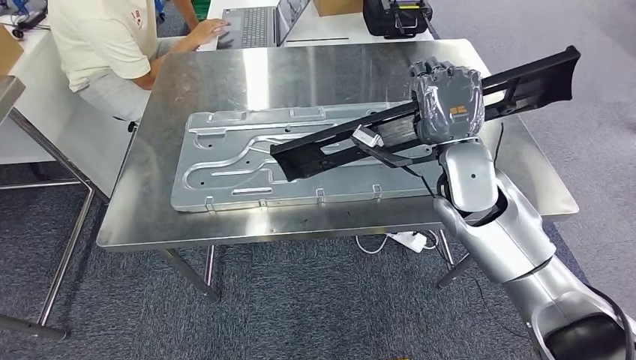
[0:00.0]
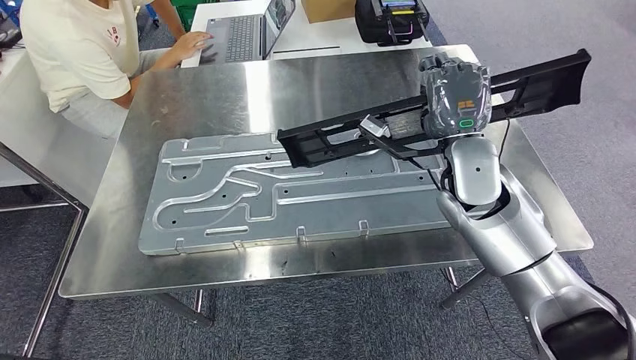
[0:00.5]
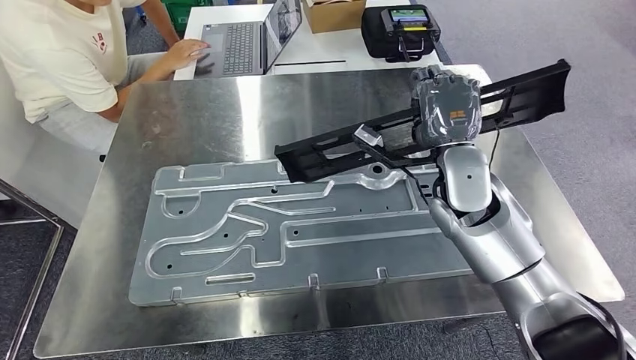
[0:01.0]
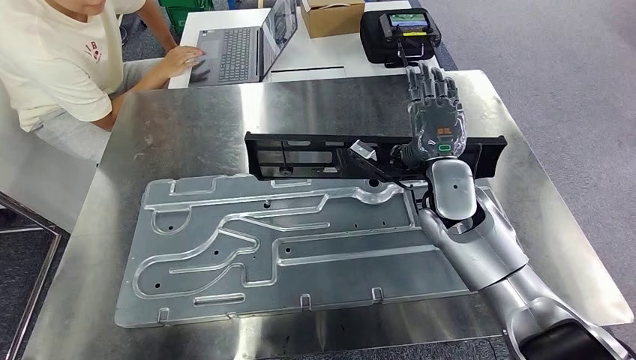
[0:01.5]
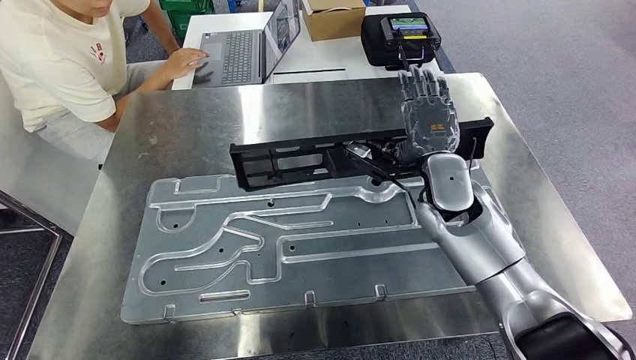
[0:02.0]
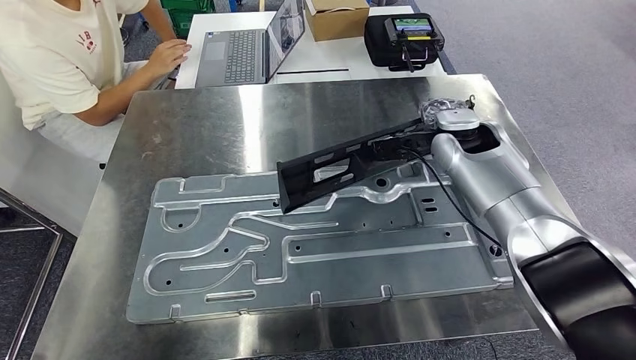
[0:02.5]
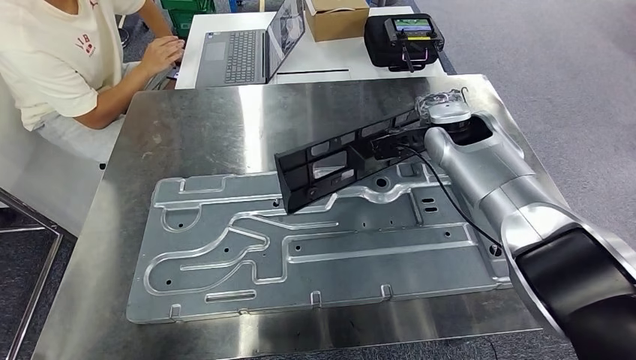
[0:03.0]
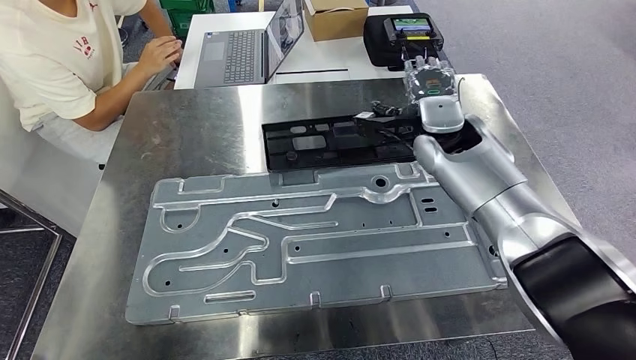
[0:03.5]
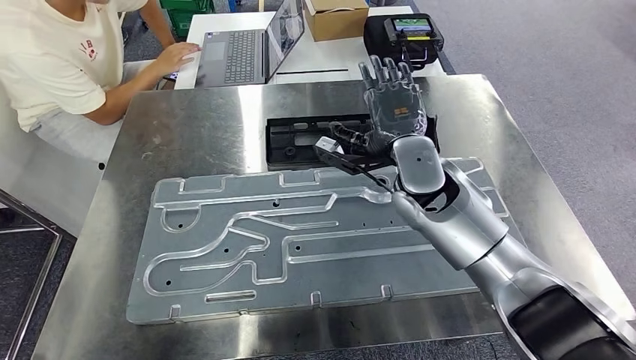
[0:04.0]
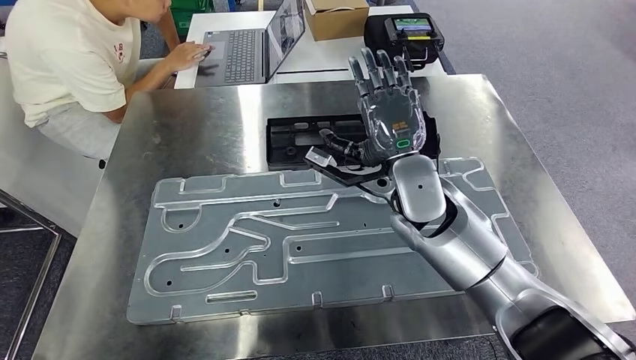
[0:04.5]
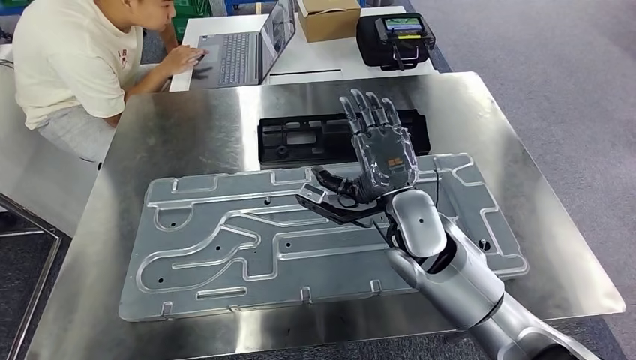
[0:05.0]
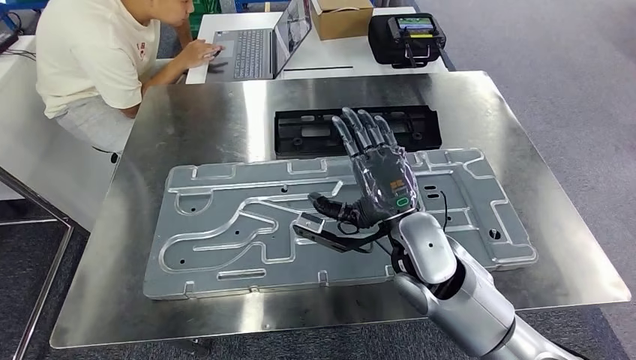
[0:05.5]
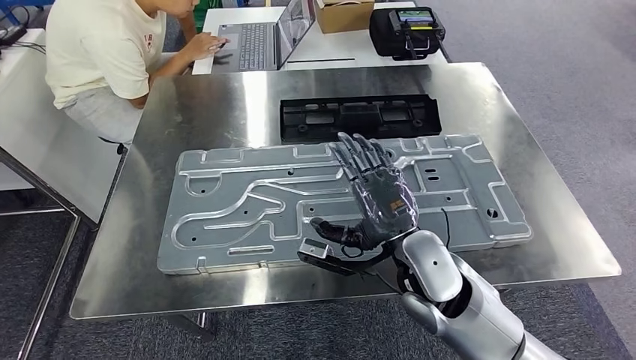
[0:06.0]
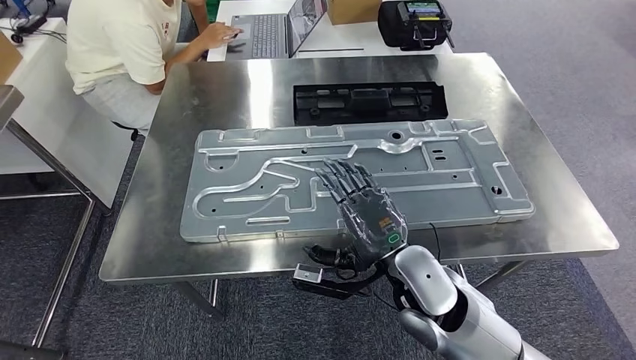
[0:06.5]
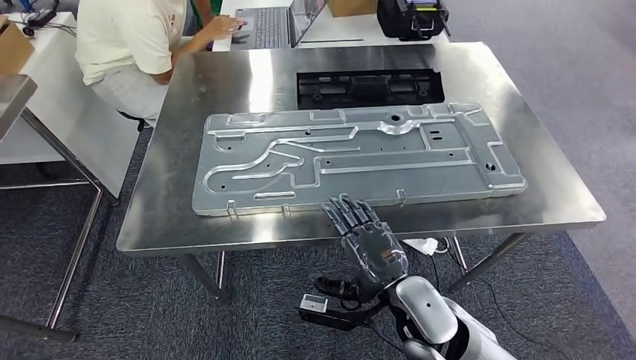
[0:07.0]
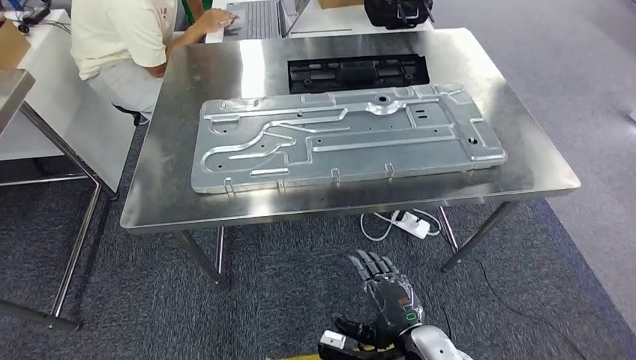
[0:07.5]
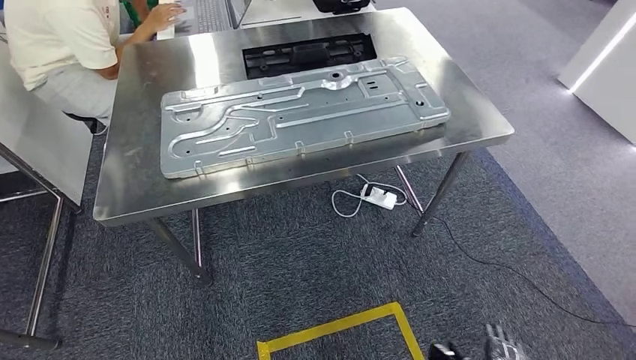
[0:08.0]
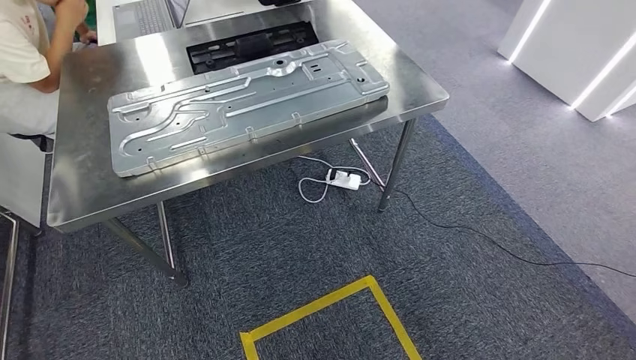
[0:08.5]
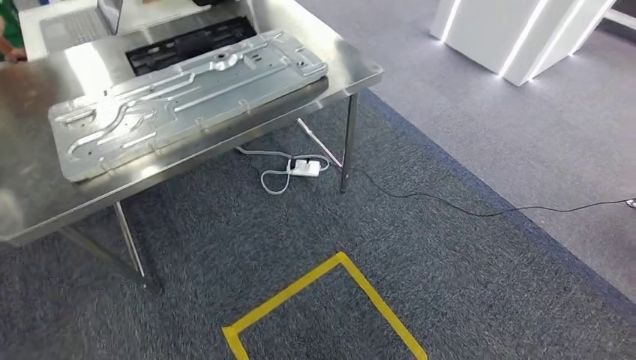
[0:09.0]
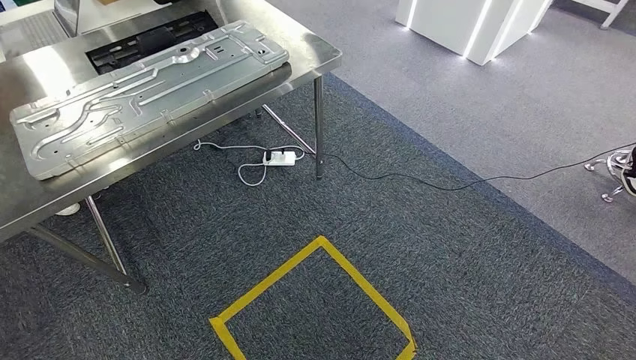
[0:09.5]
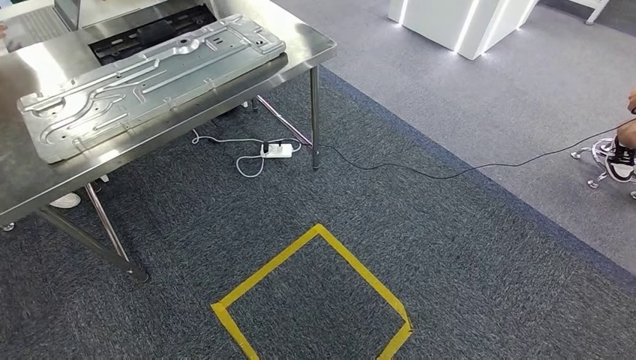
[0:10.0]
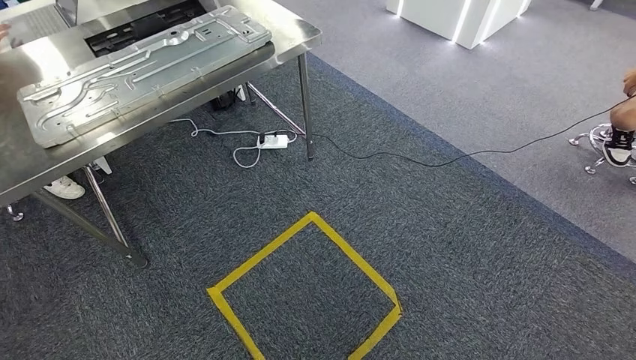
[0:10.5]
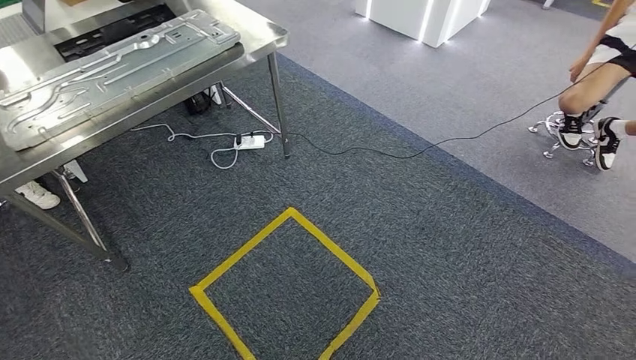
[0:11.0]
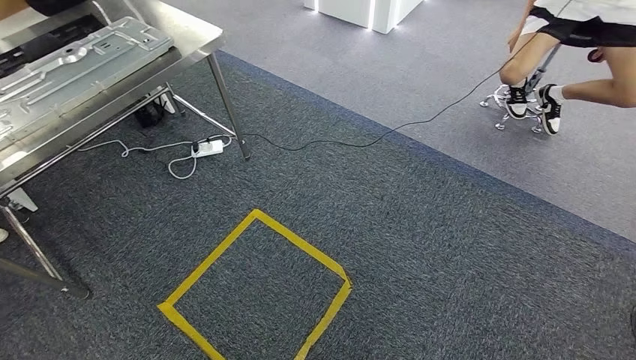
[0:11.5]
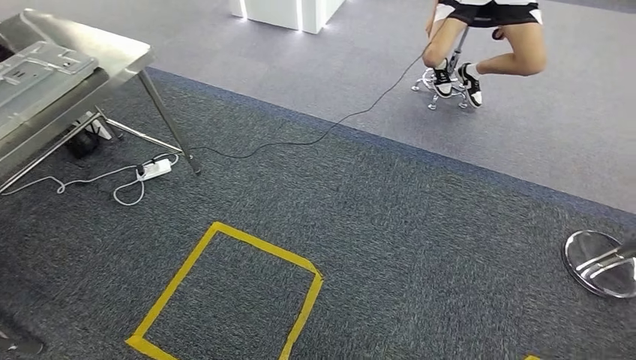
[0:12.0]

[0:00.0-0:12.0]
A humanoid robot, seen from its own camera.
Step, 0:00.0 to 0:08.5: Insert the large material into the corresponding slot on the workbench.

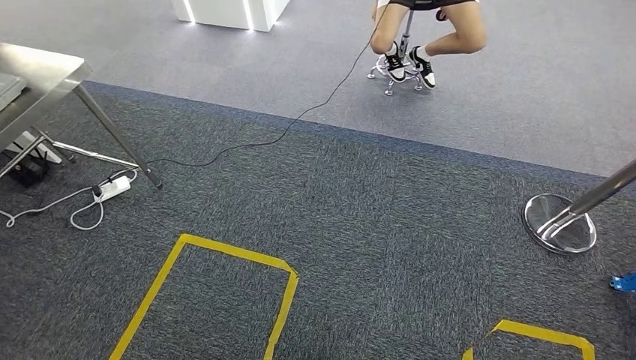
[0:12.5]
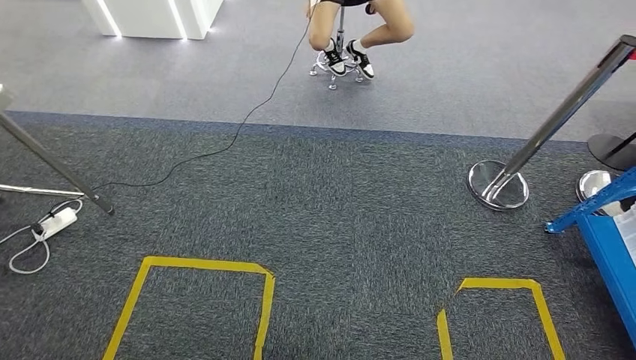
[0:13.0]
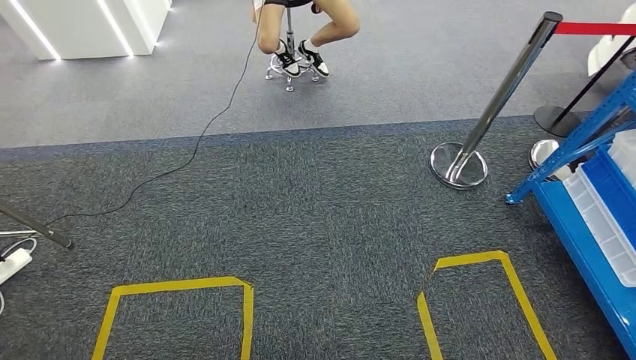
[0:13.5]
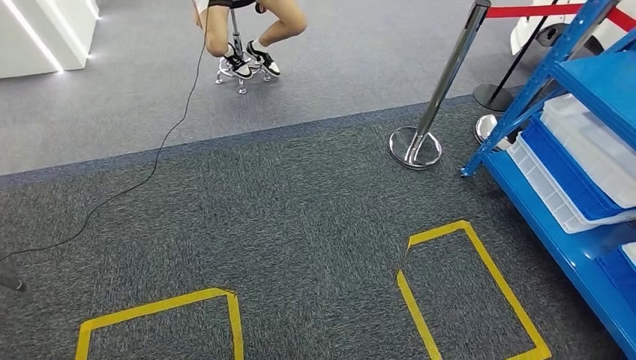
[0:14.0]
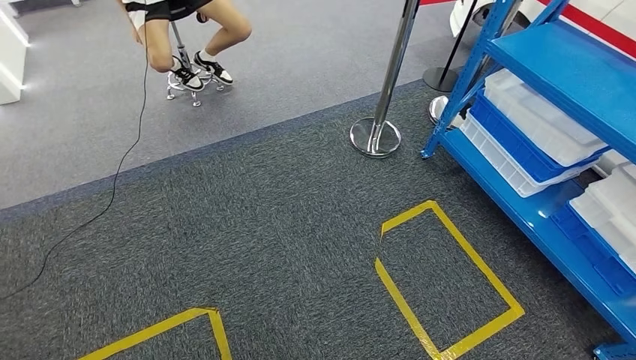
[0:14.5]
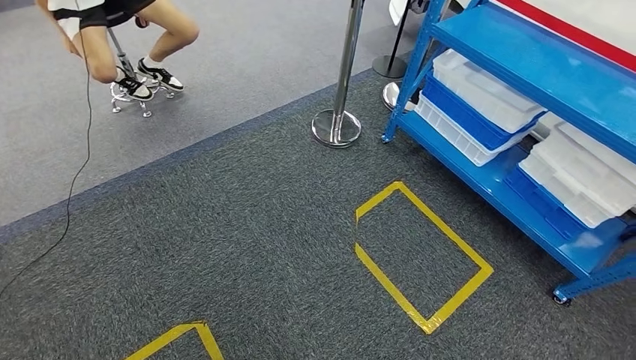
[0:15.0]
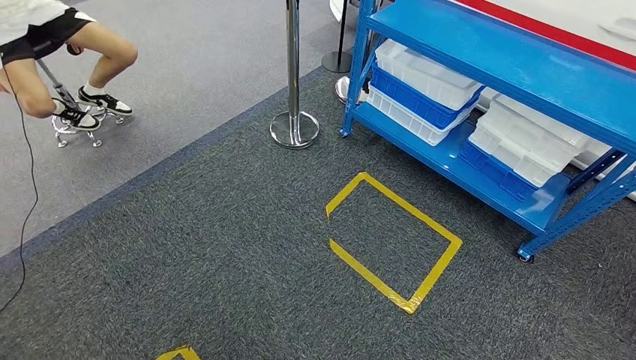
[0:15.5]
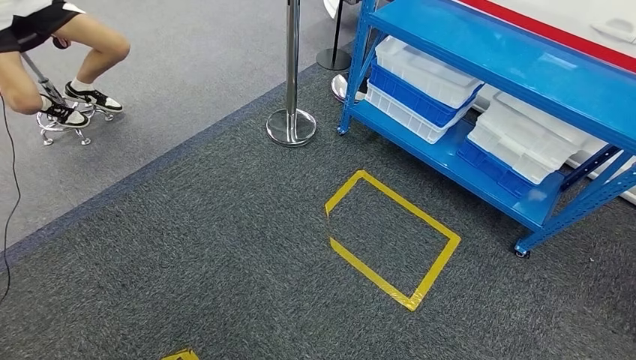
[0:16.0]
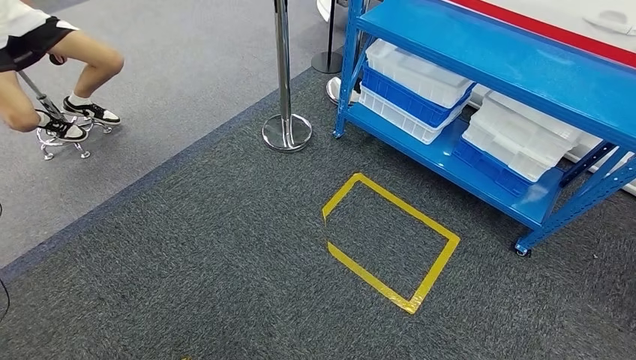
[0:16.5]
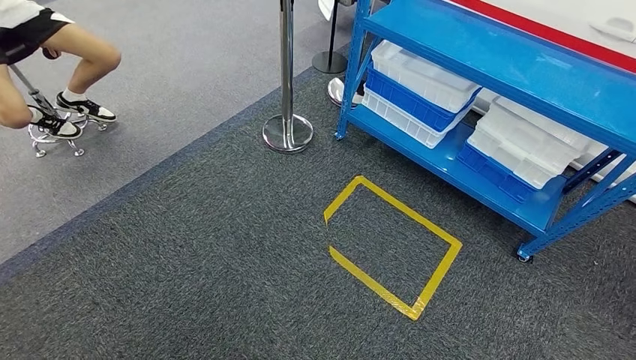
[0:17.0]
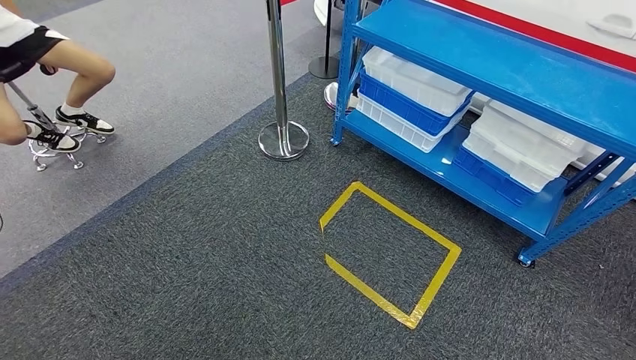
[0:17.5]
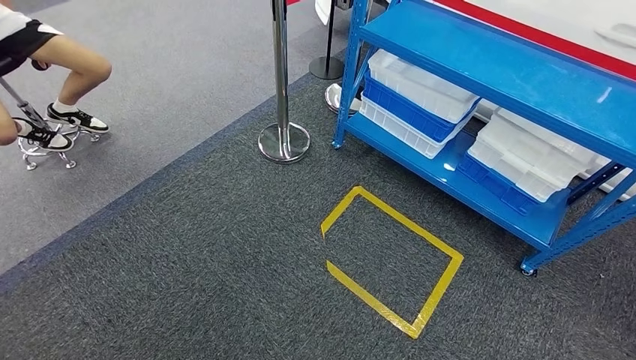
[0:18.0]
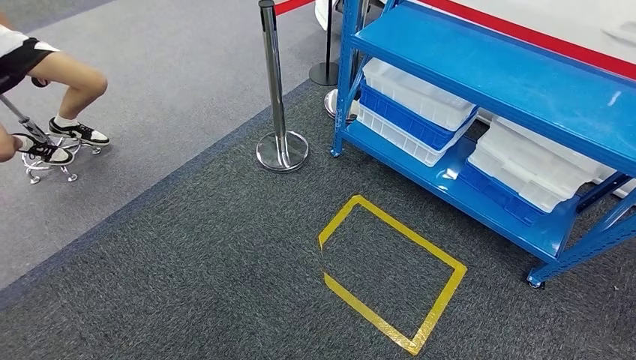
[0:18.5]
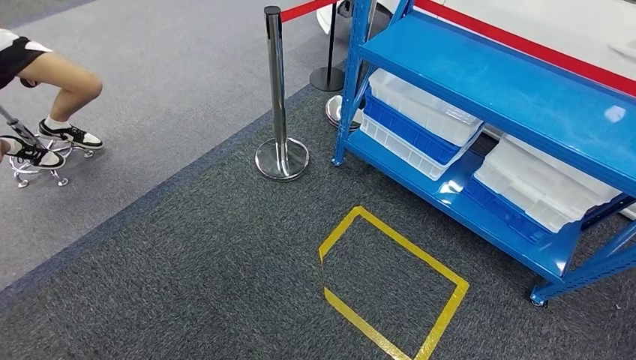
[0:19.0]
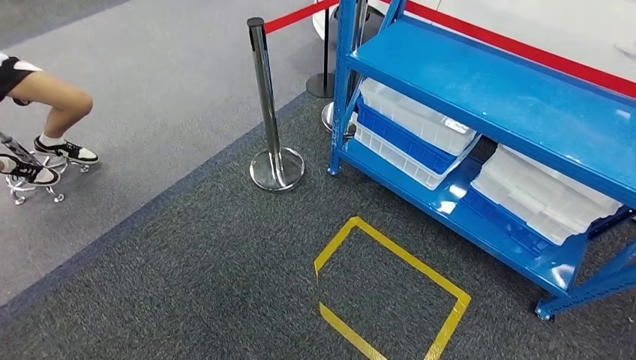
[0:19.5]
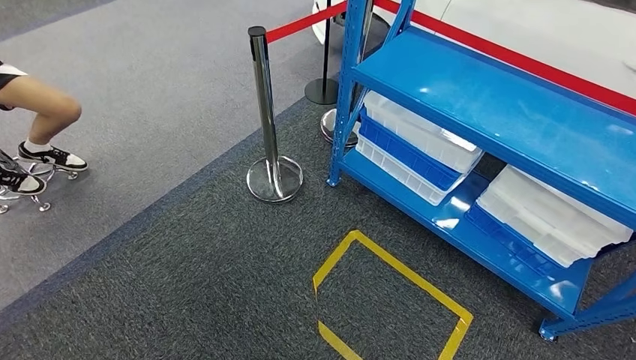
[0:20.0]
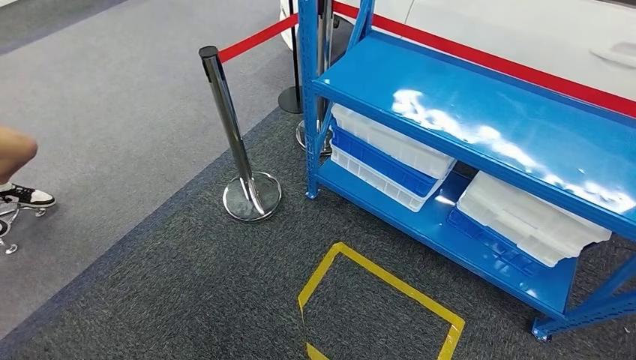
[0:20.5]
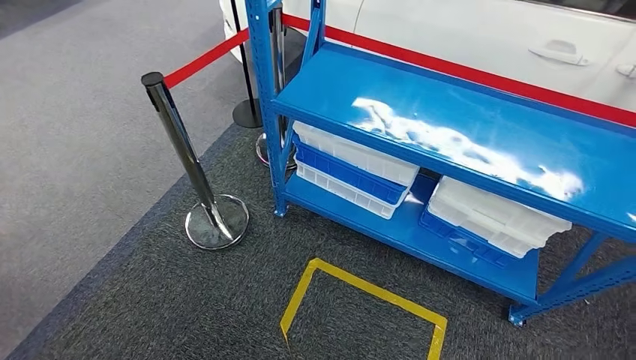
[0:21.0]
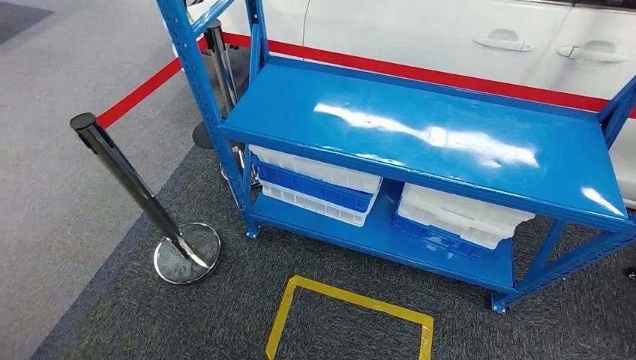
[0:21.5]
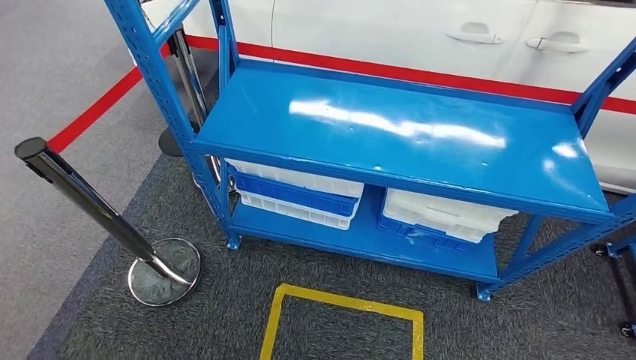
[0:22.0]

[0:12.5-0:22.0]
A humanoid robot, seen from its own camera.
Step, 0:12.5 to 0:22.0: Move to the initial position of the shelf.
